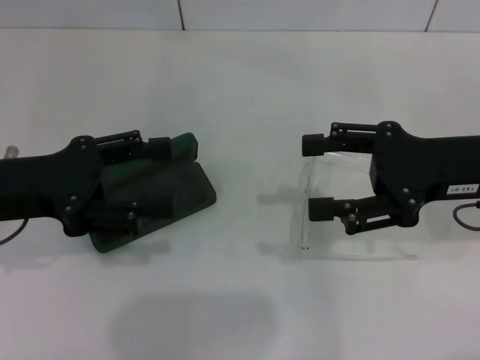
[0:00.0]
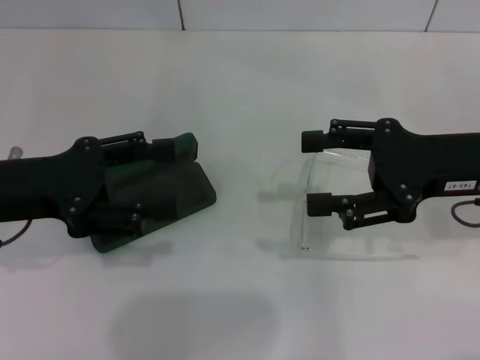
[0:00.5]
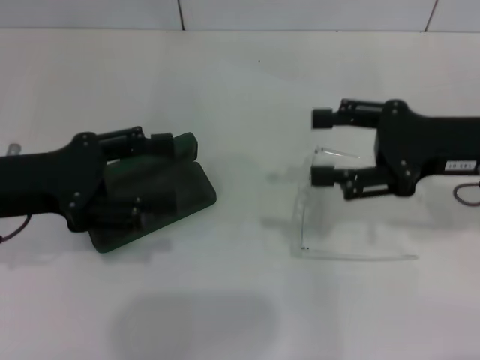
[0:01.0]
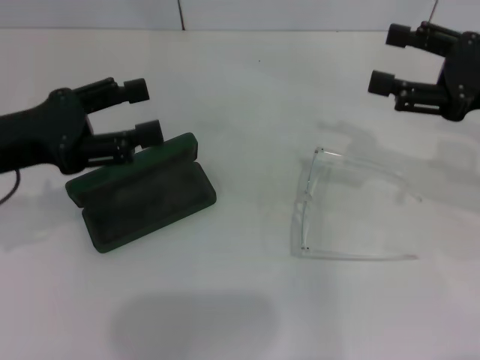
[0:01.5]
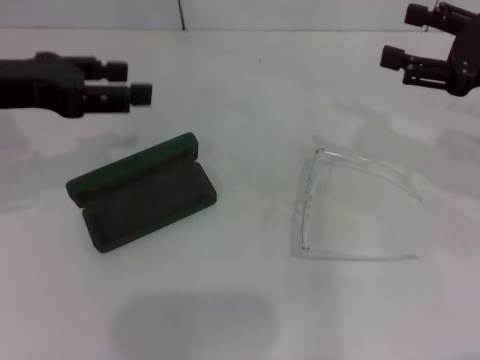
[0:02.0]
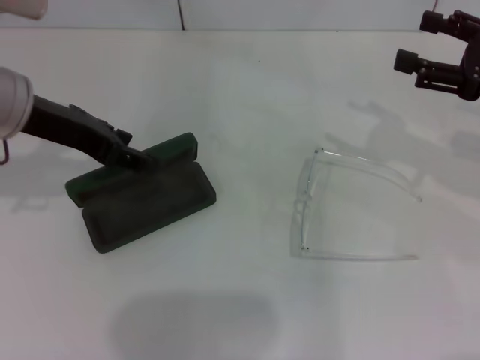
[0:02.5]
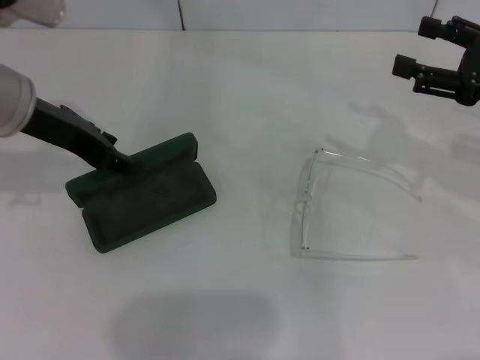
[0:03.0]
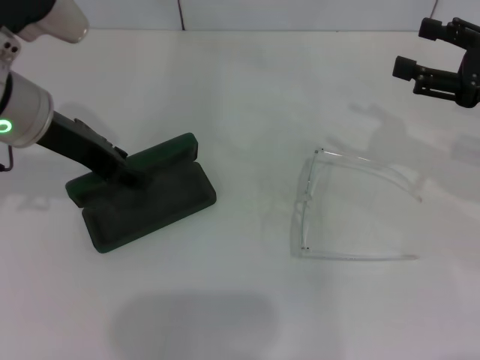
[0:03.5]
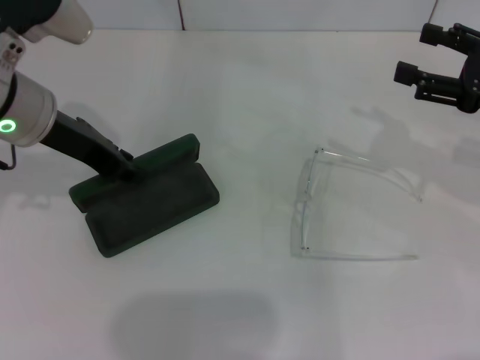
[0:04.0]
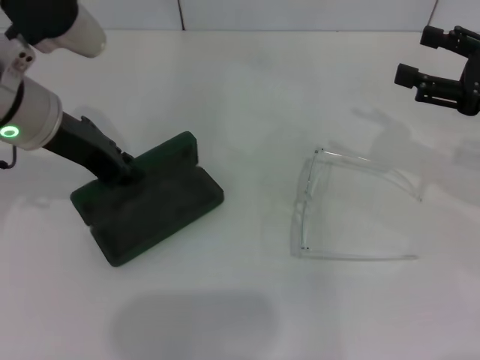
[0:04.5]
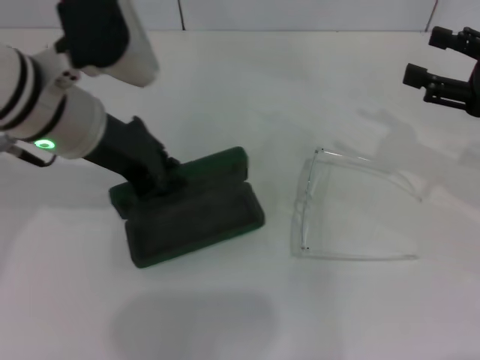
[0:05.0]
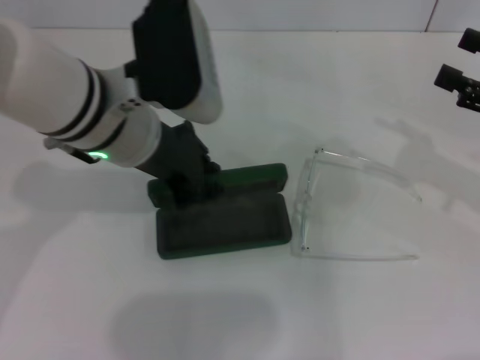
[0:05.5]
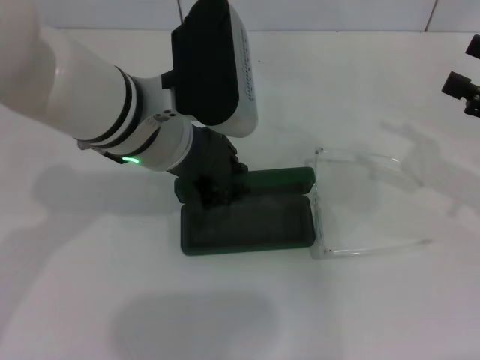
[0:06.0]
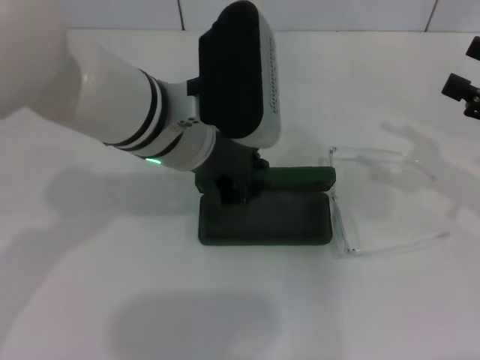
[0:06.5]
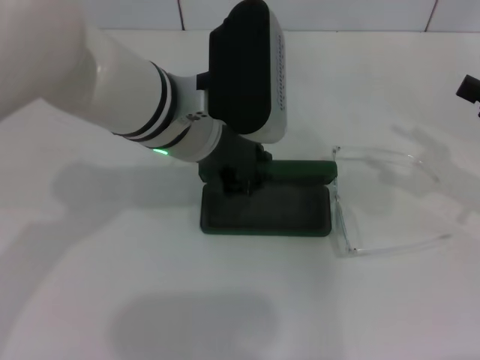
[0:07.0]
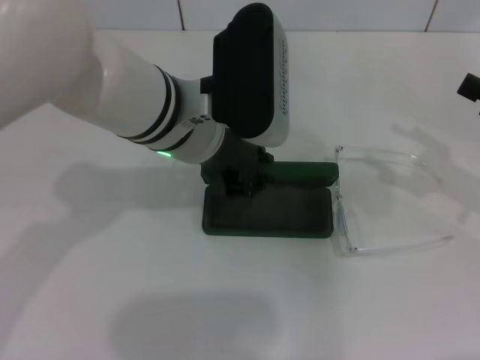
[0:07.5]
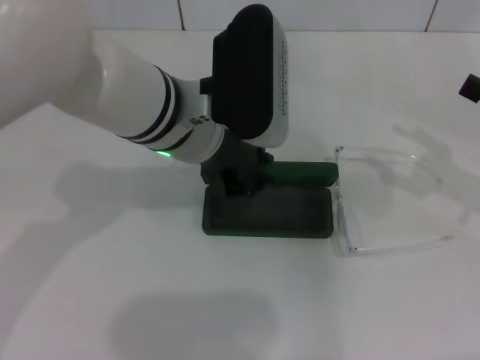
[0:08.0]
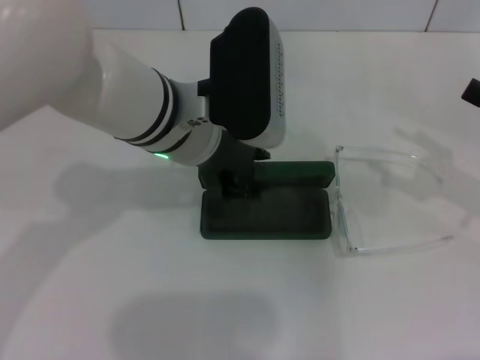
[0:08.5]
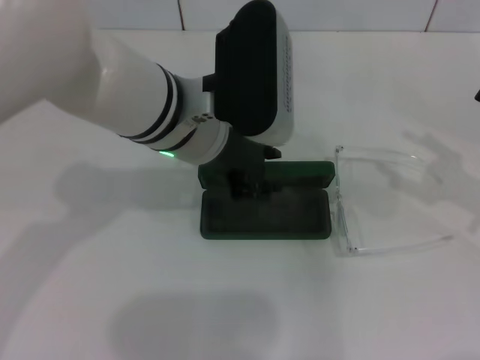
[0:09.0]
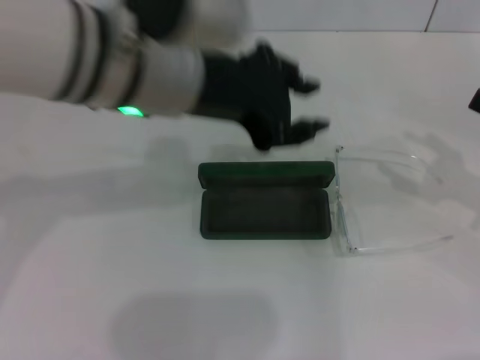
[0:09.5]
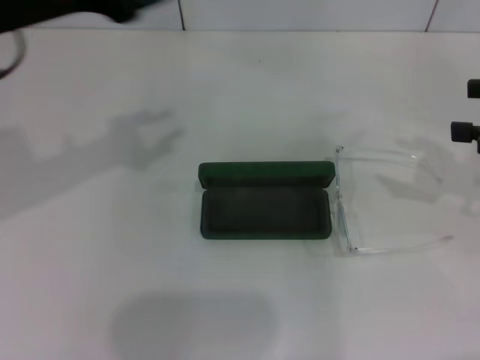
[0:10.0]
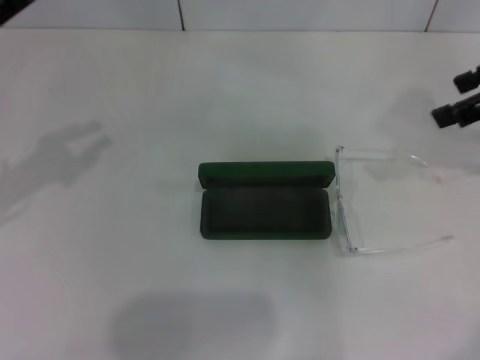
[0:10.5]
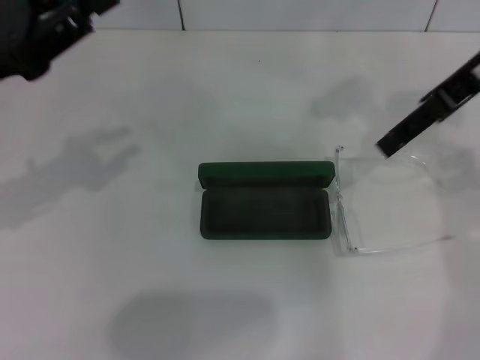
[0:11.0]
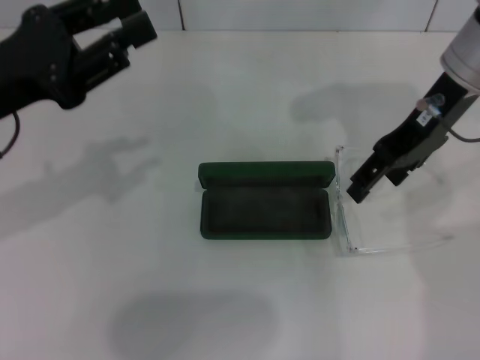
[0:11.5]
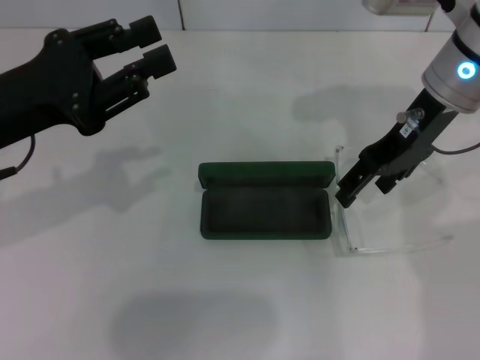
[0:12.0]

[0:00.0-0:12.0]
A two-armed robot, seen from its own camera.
Step, 0:00.0 to 0:04.0: Grab the glasses case with your left hand.
Step, 0:04.5 to 0:08.5: Place the glasses case in the center of the table with your left hand.
0:00.0 to 0:02.0: The left gripper is displaced upward by approximately 5 cm. Meanwhile the right gripper heads to the right, covering roughly 5 cm.
0:02.0 to 0:04.0: The left gripper shifts some 5 cm to the right, and closes.
0:04.0 to 0:06.0: The right gripper shifts by approximately 5 cm; the left gripper is displaced to the right by about 10 cm.
0:06.0 to 0:08.0: The grippers move only a little.
0:08.0 to 0:10.0: The right gripper moves upward, some 5 cm. The left gripper shifts roughly 20 cm to the left and upward.
0:10.0 to 0:12.0: The right gripper shifts about 20 cm to the left and forward. Meanwhile the left gripper is displaced downward by roughly 10 cm.

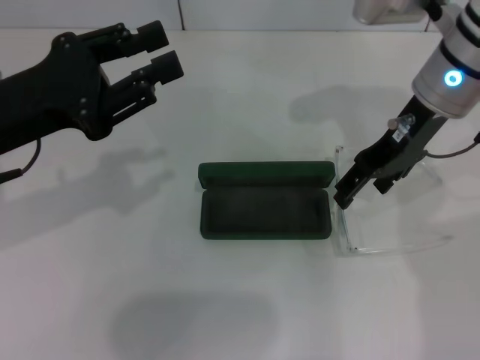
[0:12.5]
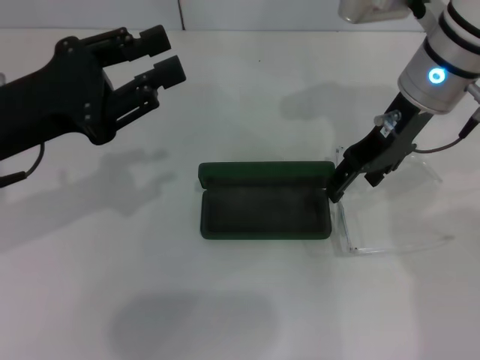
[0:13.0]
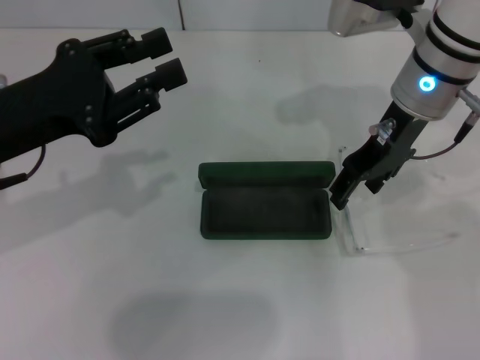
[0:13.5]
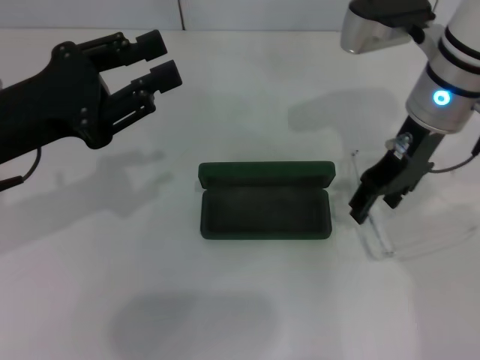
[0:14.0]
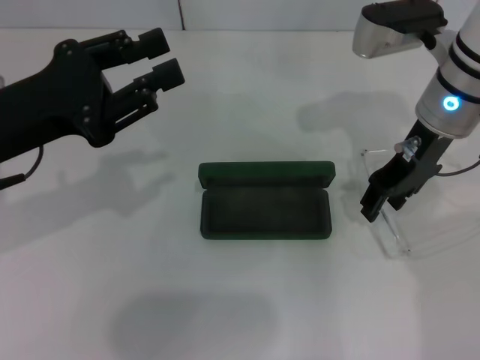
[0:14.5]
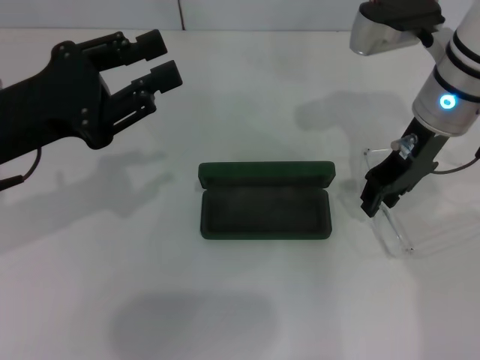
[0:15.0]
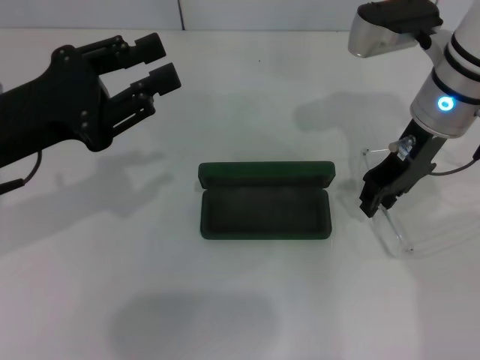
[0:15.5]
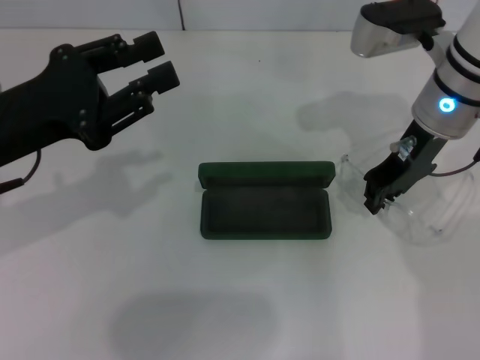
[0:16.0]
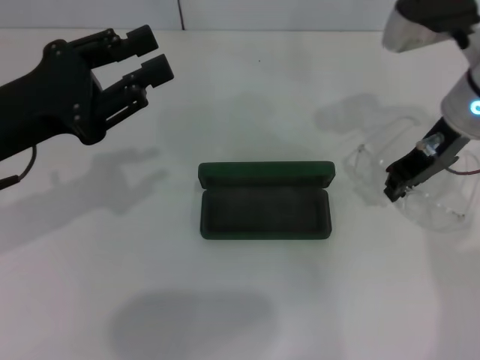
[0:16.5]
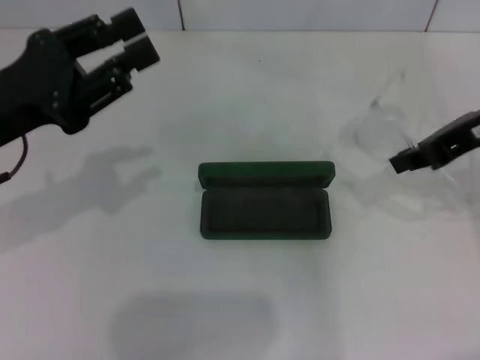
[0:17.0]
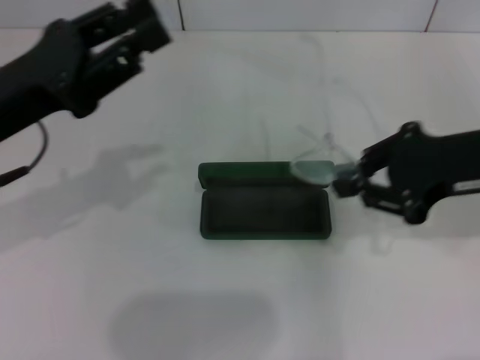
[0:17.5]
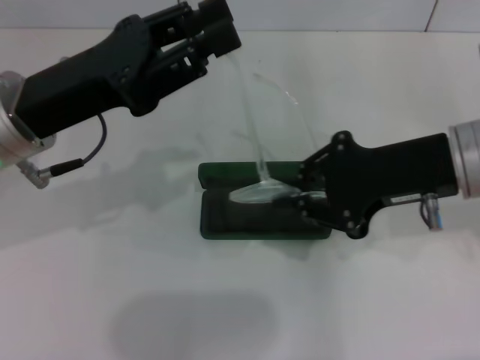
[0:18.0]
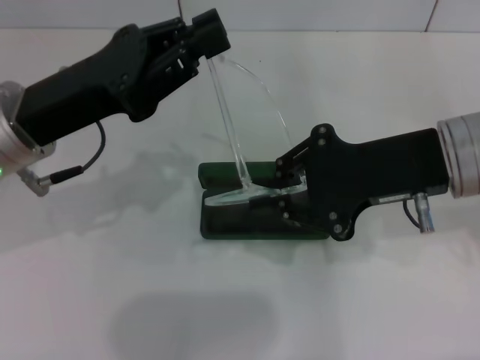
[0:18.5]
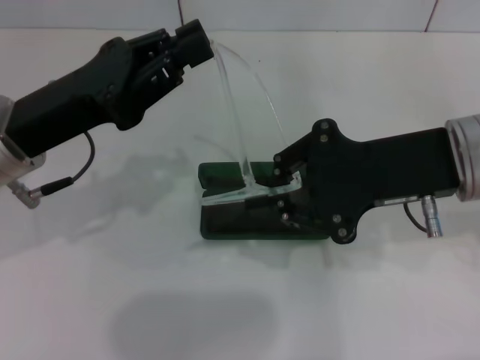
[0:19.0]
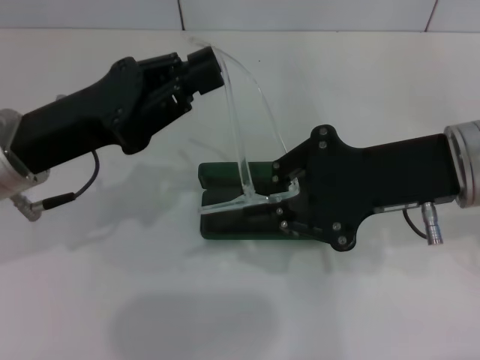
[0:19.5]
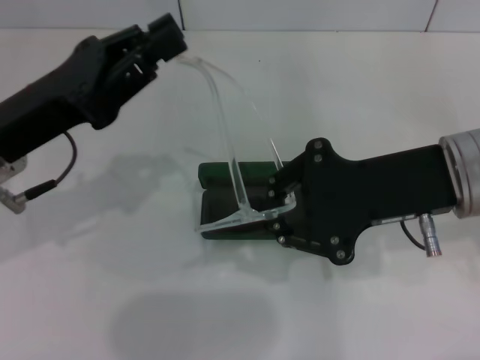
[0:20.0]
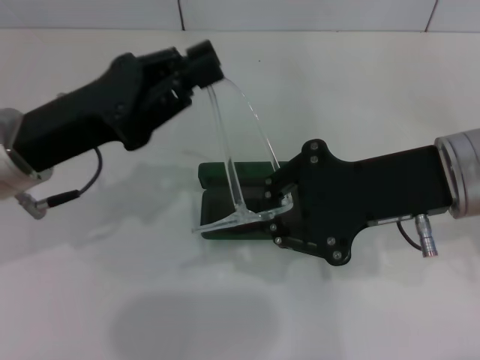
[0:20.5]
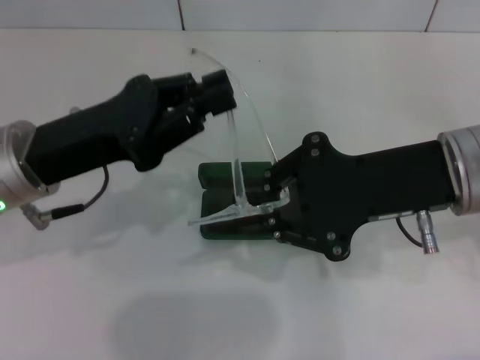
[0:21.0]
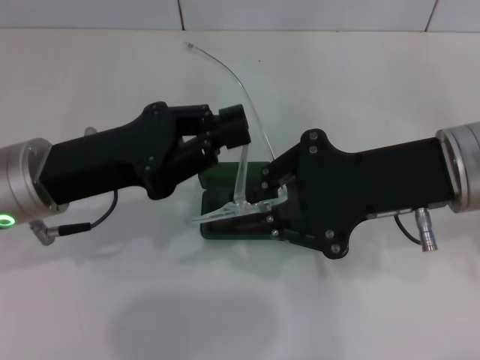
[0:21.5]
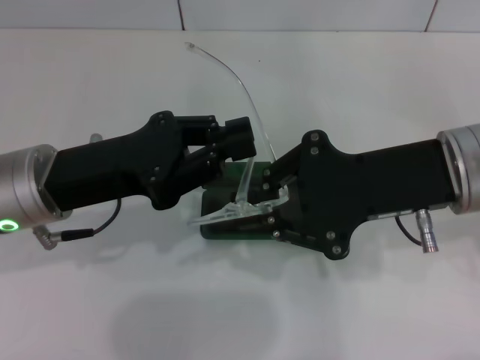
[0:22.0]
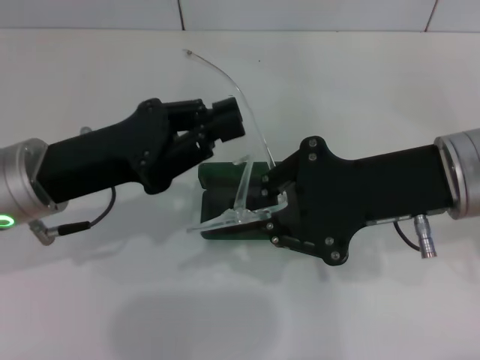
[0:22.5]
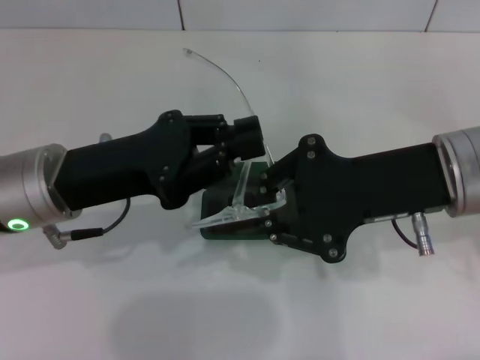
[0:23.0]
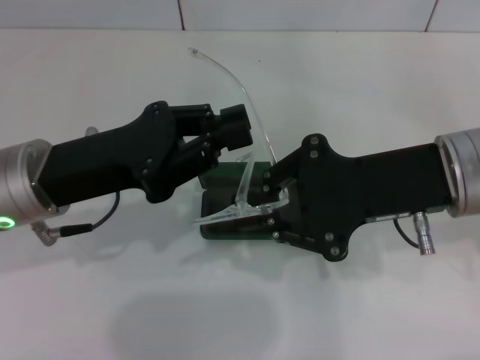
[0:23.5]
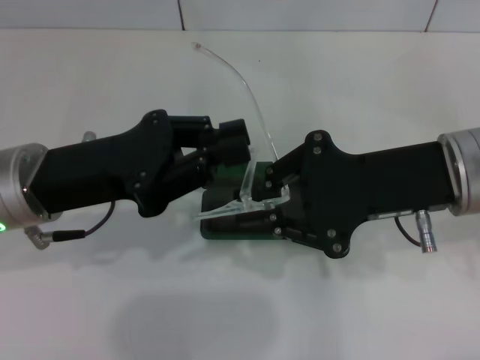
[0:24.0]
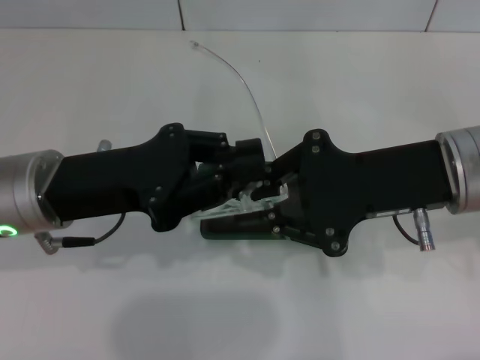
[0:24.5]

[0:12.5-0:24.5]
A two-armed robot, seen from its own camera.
Step, 0:12.5 to 0:16.0: Grab the eyeglass frame with your right hand.
0:12.5 to 0:14.5: The grippers move only a little.
0:14.5 to 0:16.5: The right gripper closes up.
0:16.5 to 0:18.5: The right gripper heads backward, covering about 10 cm.
0:18.5 to 0:24.5: The grippers make only small movements.

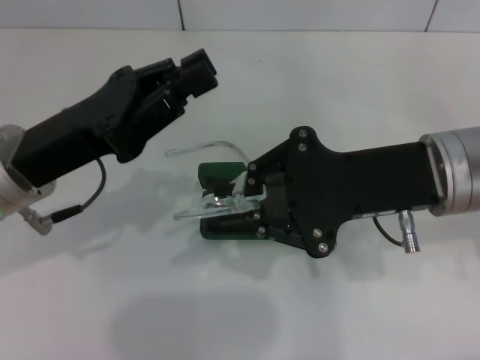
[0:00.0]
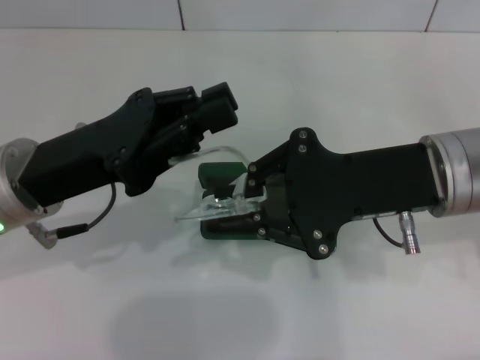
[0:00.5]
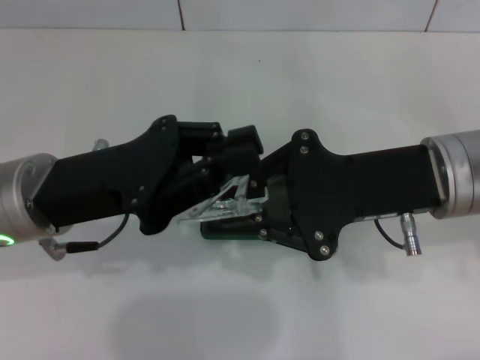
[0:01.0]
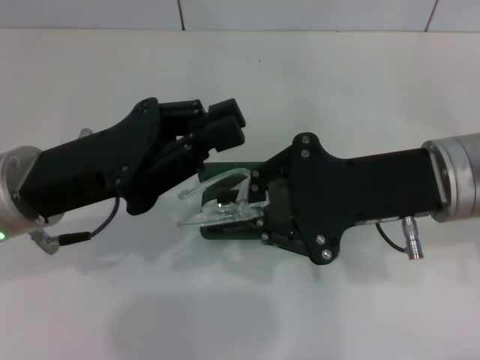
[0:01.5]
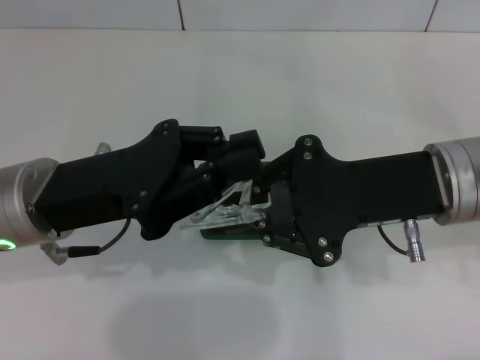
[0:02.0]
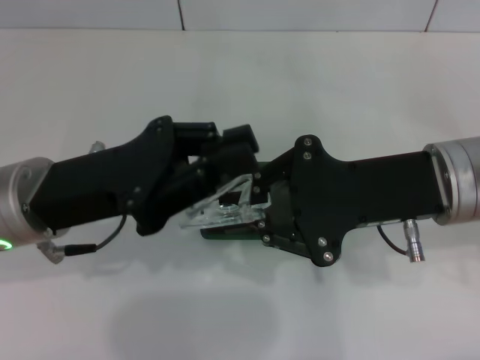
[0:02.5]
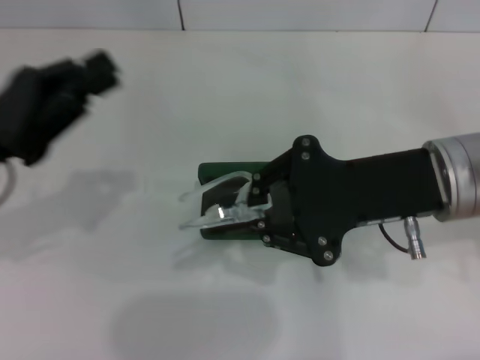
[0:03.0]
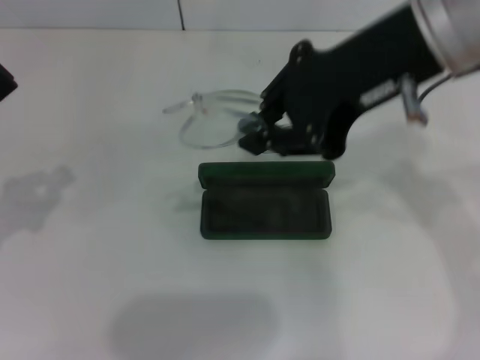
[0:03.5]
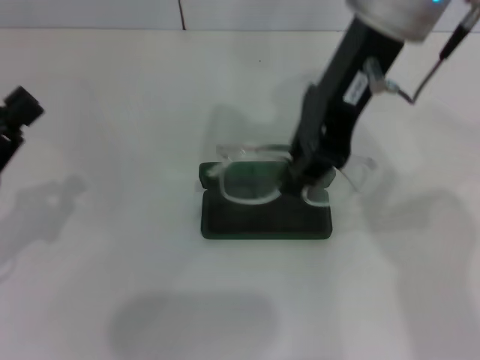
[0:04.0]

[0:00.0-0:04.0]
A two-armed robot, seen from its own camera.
Step, 0:00.0 to 0:02.0: Fold the frame with your left hand.
0:02.0 to 0:04.0: The right gripper moves upward, to the left and forward, approximately 20 cm; the left gripper moves to the left, some 10 cm.
